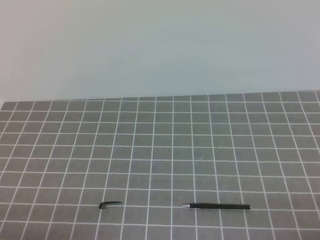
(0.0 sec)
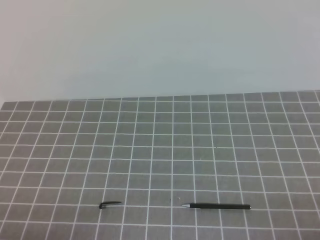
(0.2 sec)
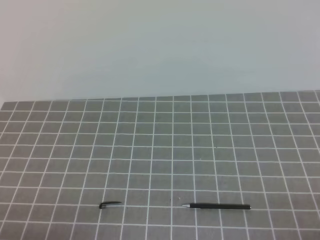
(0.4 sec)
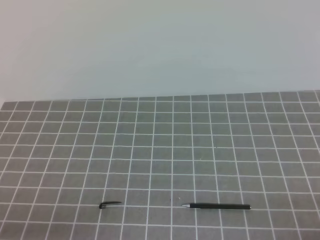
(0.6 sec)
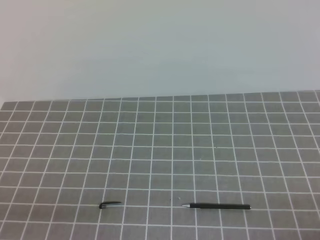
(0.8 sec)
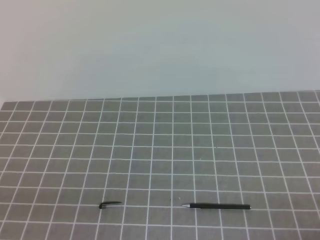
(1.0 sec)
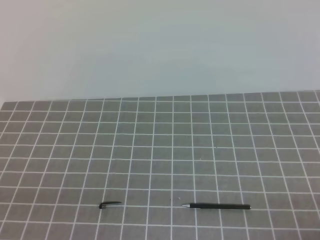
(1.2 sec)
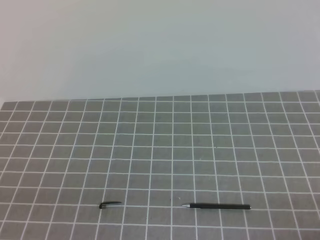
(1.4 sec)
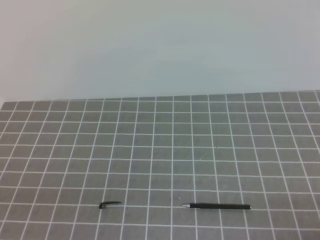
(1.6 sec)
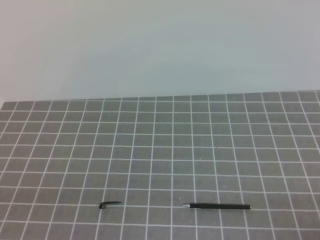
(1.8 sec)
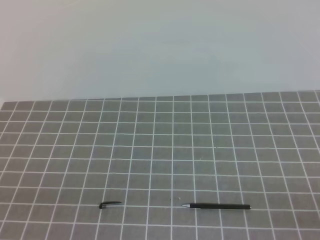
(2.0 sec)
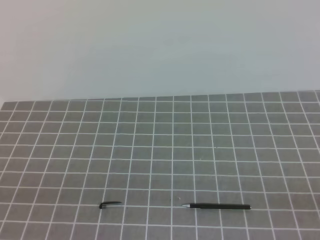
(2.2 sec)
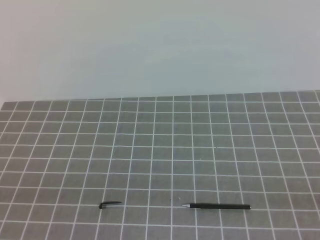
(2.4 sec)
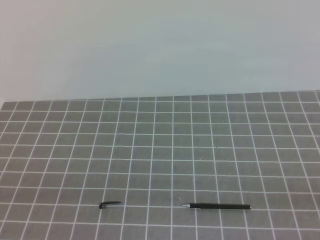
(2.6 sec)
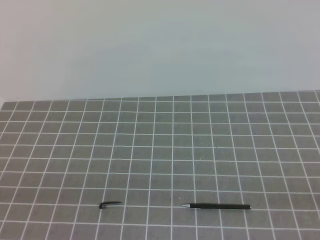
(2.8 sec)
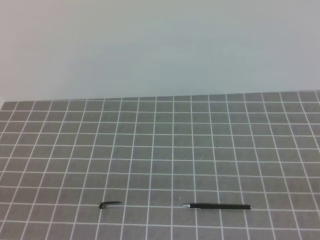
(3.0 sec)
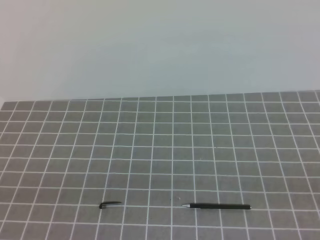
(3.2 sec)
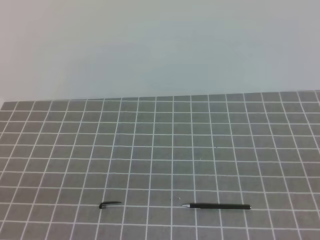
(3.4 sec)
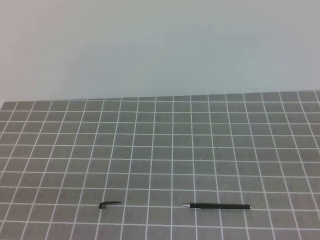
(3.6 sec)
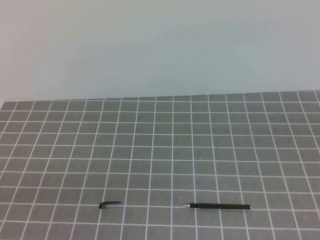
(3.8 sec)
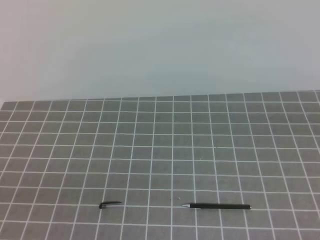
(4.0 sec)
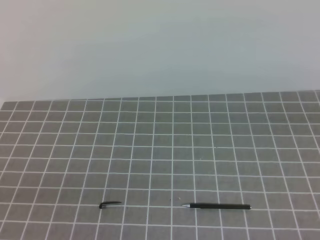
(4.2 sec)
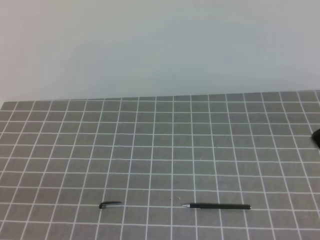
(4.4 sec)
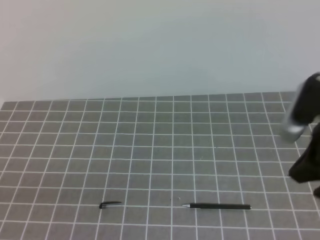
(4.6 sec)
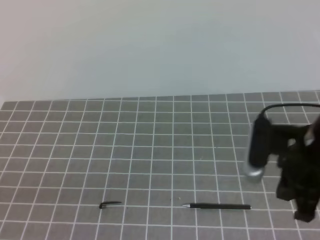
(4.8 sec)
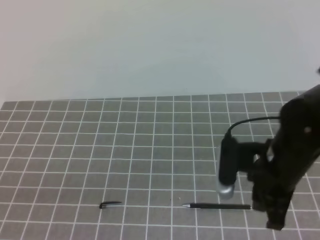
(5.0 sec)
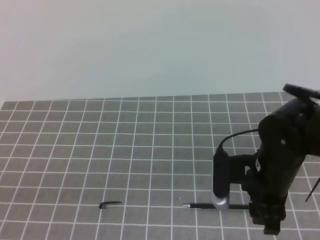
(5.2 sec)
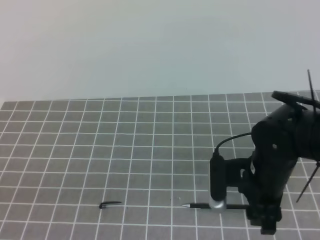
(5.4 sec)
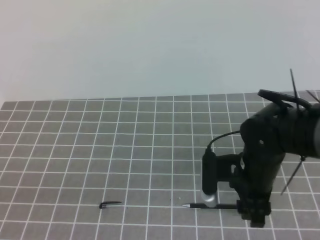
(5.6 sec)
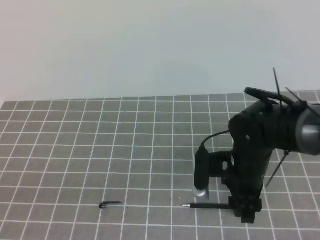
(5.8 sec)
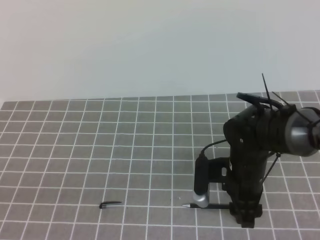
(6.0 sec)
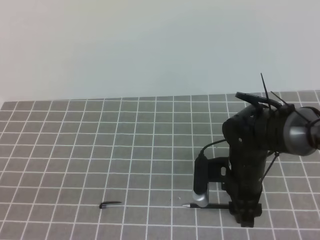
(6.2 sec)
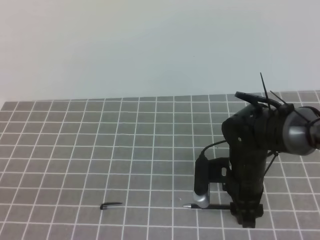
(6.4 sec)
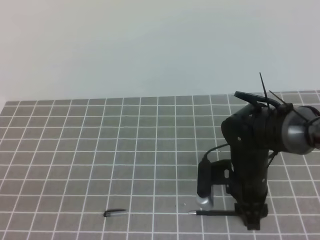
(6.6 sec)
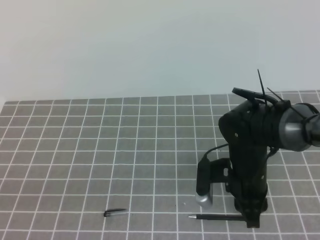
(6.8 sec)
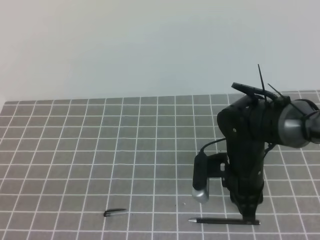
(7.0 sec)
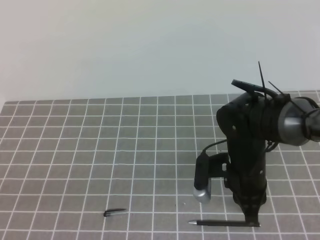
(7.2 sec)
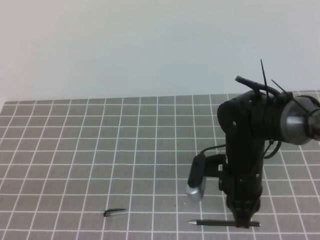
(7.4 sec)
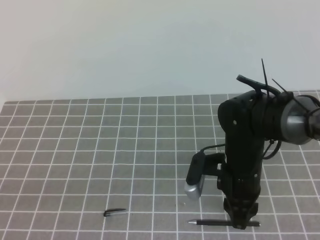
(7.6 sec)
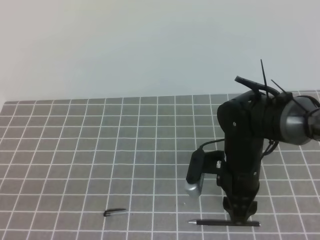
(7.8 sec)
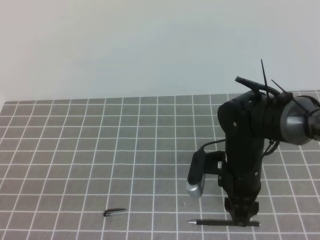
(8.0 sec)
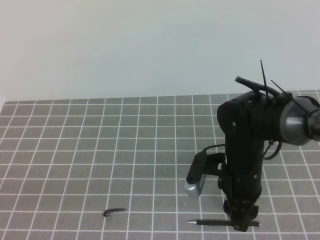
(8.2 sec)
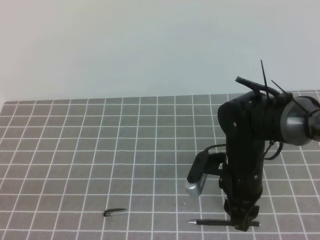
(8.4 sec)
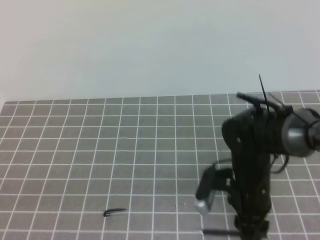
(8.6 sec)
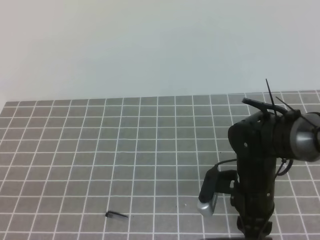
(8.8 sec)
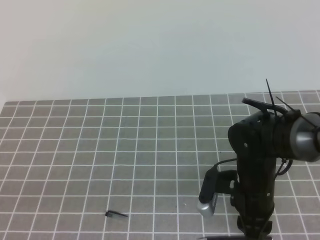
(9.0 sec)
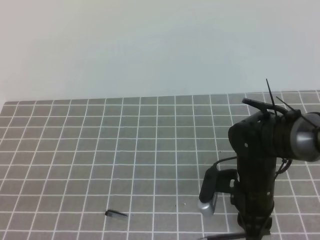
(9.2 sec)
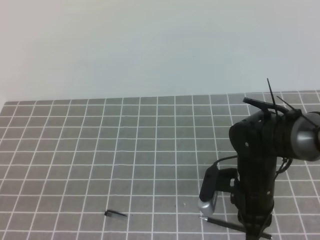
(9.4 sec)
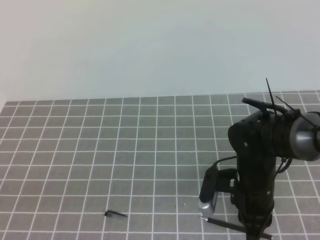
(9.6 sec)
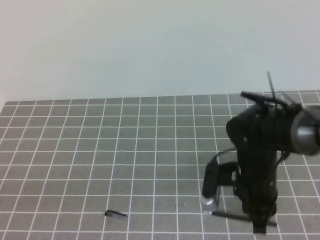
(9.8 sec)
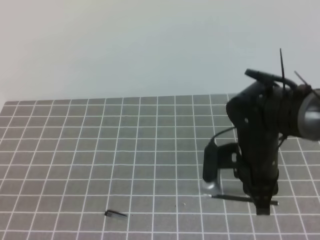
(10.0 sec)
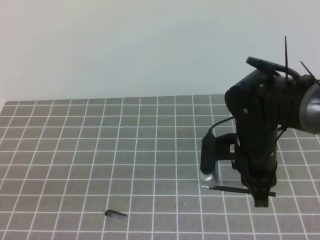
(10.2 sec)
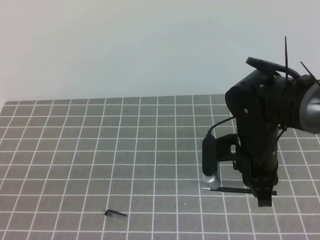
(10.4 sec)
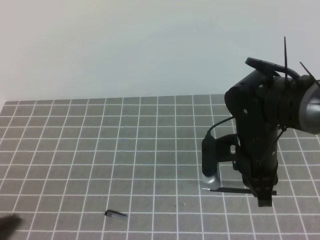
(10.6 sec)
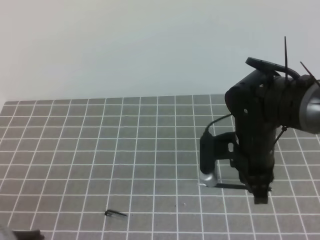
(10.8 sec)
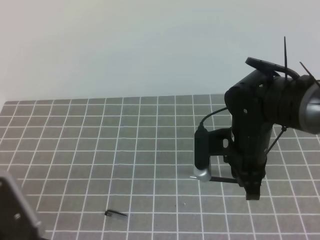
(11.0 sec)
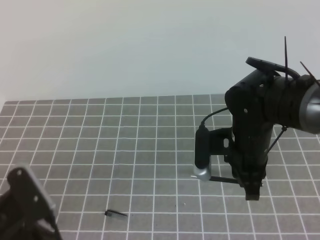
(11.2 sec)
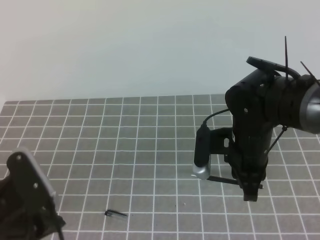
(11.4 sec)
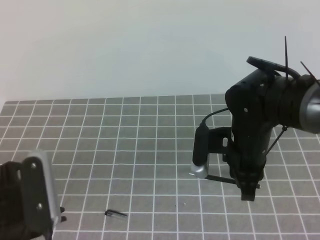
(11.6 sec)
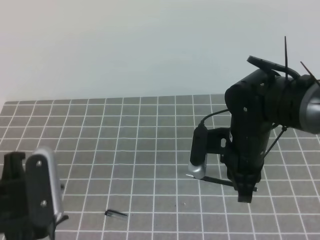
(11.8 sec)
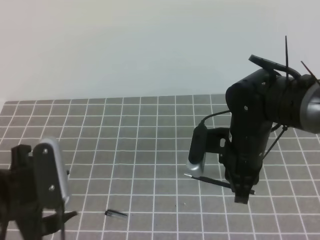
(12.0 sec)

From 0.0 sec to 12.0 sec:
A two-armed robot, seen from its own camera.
Task of the whole recording: on the grey tablecloth, hold the pen cap in one hand and the pen in the other, then cover the pen cap.
From 4.4 sec to 6.0 sec: The right gripper shifts roughly 25 cm downward and to the left, and opens up.
From 6.0 sec to 7.6 sec: The right gripper closes its fingers.
From 7.6 sec to 9.0 sec: The grippers move only a little.
From 9.0 sec to 10.4 sec: The right gripper heads upward, covering approximately 5 cm, and closes its fingers.
From 10.4 sec to 12.0 sec: The left gripper travels forward and to the right by roughly 15 cm, and opens up.

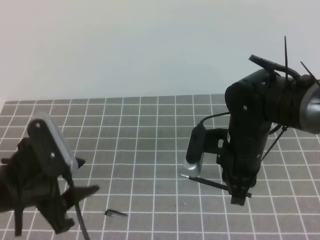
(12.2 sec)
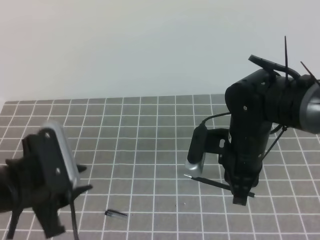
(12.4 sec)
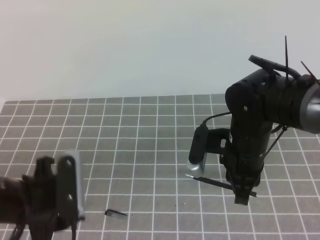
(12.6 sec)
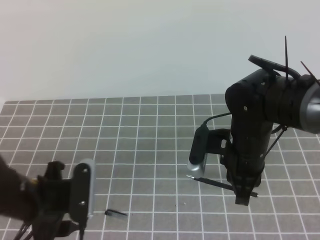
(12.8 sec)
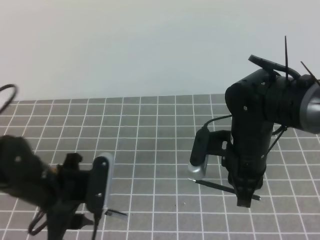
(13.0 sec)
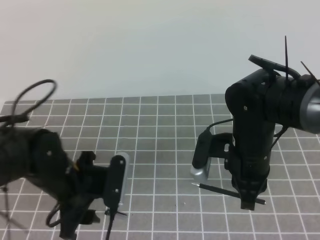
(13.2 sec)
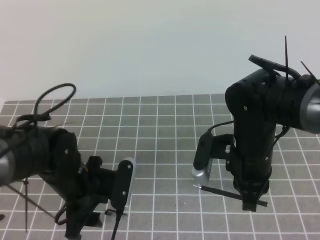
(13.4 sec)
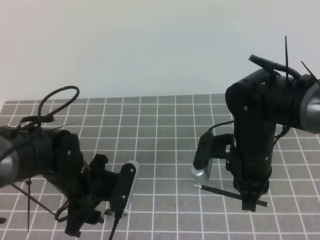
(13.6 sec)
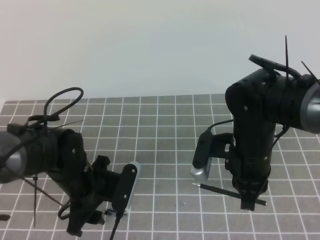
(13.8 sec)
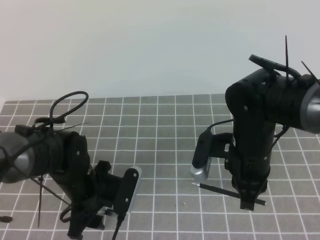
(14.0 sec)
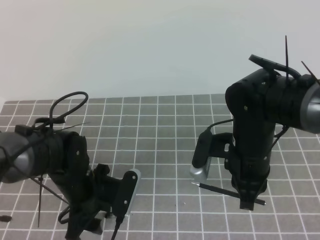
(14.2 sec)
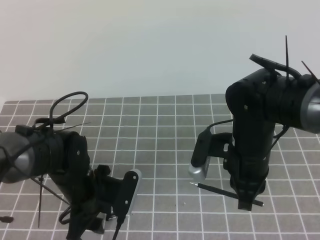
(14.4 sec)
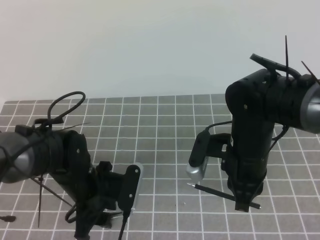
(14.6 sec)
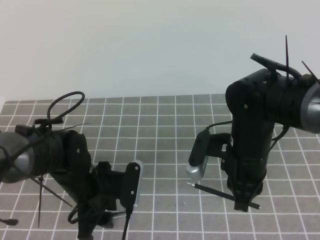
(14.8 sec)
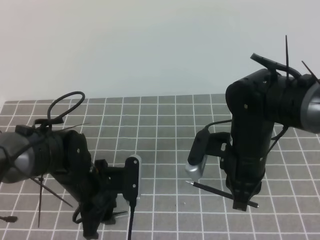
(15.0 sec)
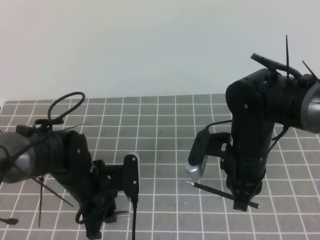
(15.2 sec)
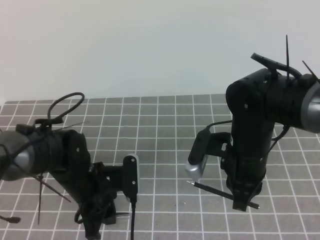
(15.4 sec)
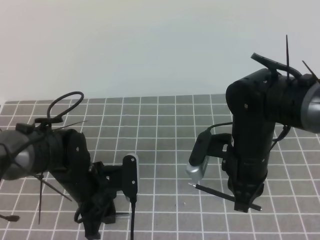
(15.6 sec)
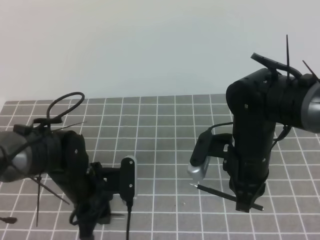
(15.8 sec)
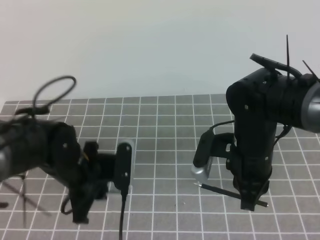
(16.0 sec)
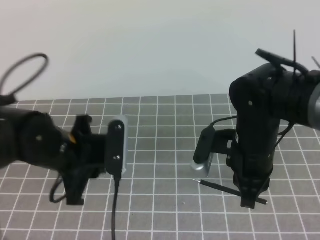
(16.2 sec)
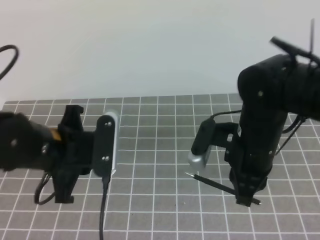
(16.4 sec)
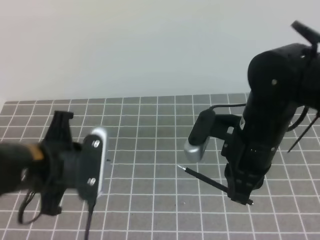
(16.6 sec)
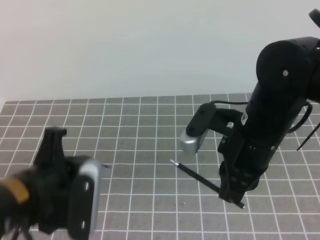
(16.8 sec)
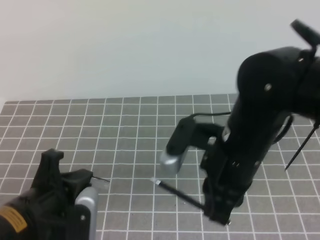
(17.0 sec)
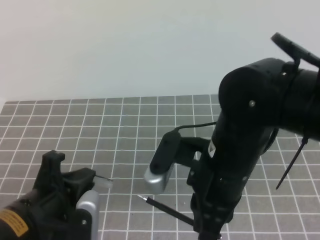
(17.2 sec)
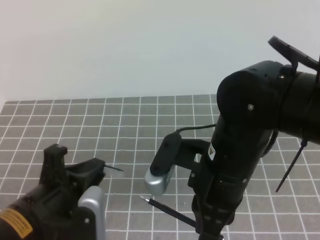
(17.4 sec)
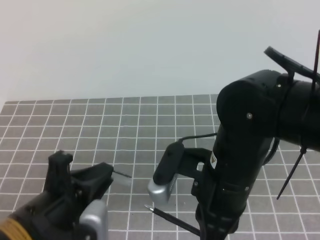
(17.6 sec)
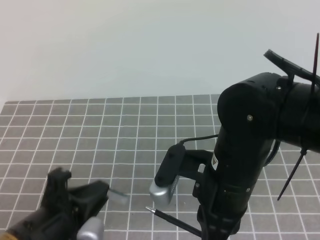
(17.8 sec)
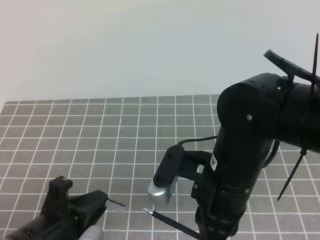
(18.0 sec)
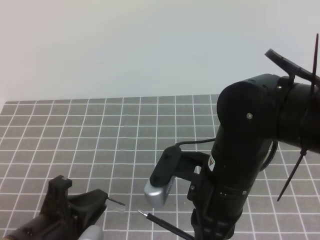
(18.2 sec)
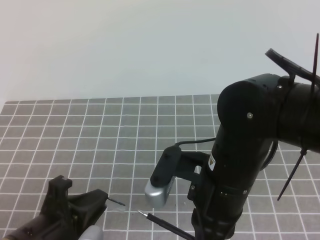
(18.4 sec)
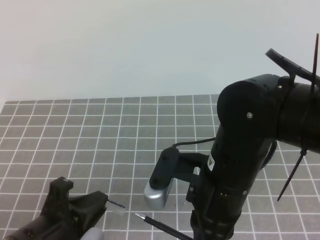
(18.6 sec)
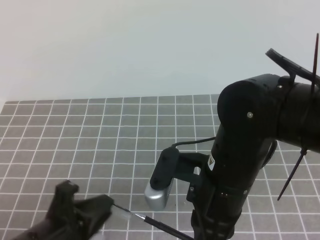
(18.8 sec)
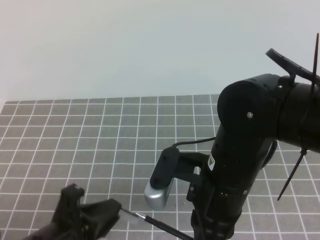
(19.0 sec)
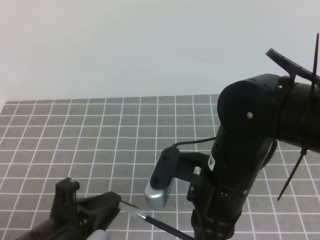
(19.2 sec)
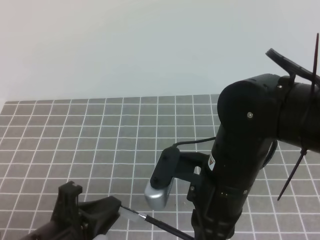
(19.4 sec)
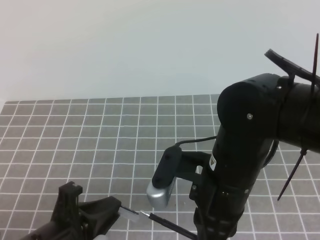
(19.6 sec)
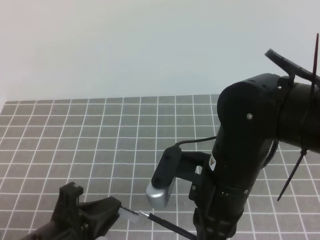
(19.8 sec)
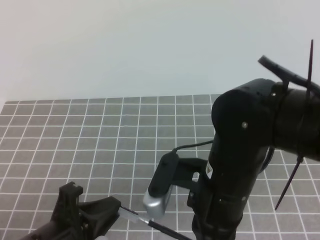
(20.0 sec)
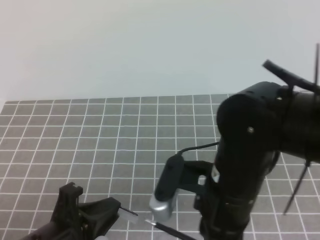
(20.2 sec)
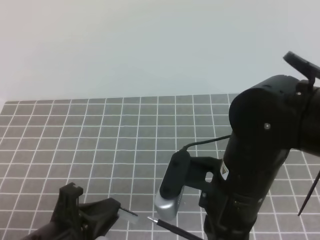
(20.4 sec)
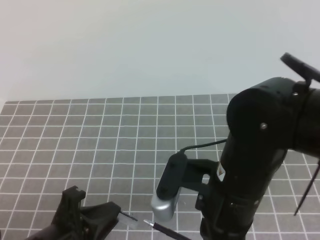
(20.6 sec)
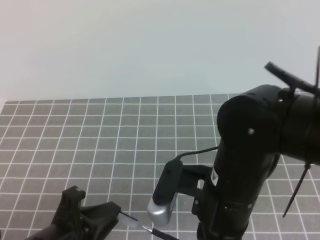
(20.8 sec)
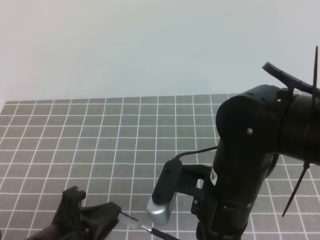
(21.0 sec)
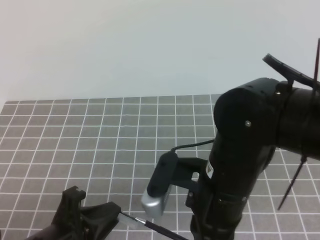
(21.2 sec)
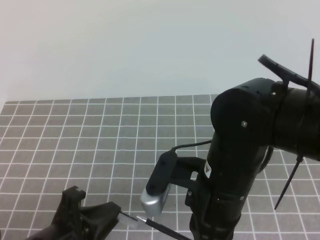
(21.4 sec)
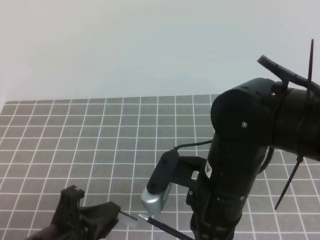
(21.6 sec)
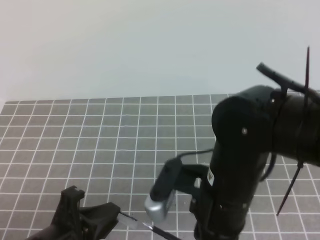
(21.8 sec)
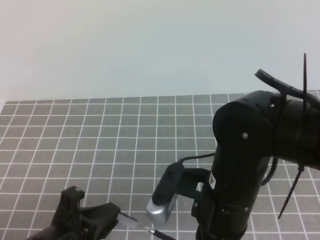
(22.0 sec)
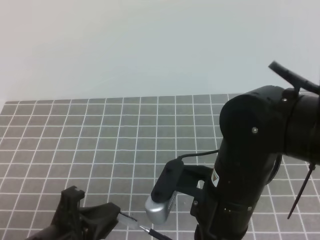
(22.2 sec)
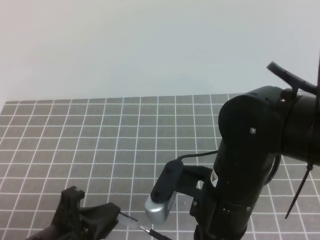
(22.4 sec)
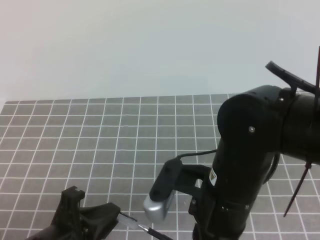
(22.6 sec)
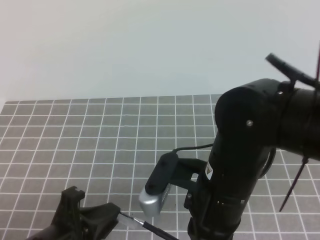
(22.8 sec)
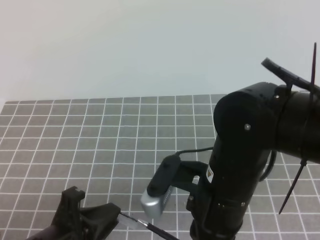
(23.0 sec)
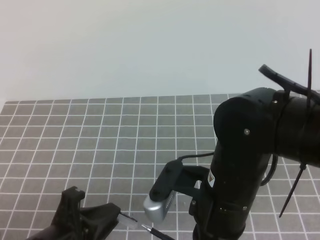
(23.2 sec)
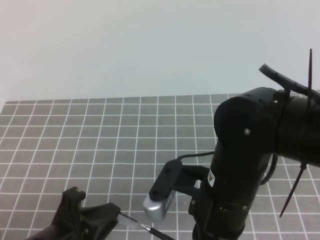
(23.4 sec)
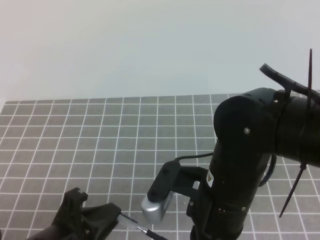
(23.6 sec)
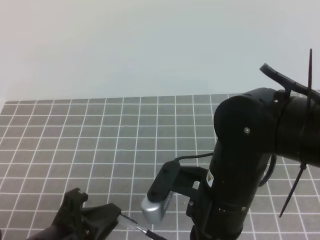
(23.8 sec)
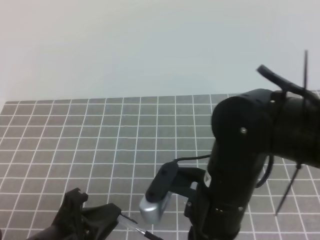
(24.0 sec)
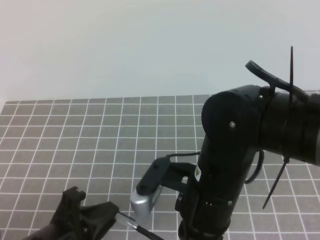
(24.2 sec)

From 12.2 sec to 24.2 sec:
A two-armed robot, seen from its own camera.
Task of the whole recording: on the grey tablecloth, hold the pen cap in one hand and the pen in the other, then cover the pen cap.
From 12.2 sec to 13.8 sec: The left gripper travels downward, forward and to the right by roughly 15 cm.
From 13.8 sec to 15.2 sec: The left gripper closes.
From 15.2 sec to 16.6 sec: The right gripper is displaced upward by about 5 cm. Meanwhile the left gripper goes roughly 15 cm upward and backward.
From 16.6 sec to 18.2 sec: Both grippers move backward, roughly 10 cm.
From 18.2 sec to 21.2 sec: The grippers stay close to where they were, moving slightly.
From 21.2 sec to 22.6 sec: Neither gripper changes place.
From 22.6 sec to 24.2 sec: The grippers stay close to where they were, moving slightly.
